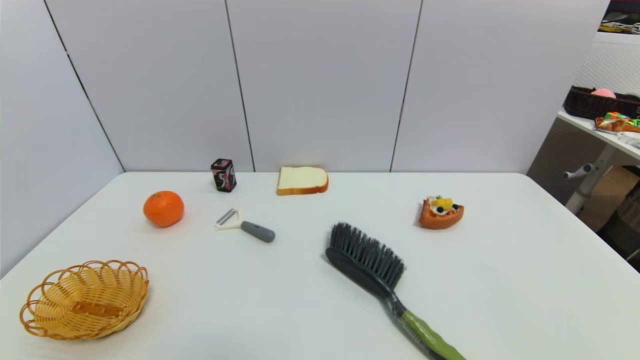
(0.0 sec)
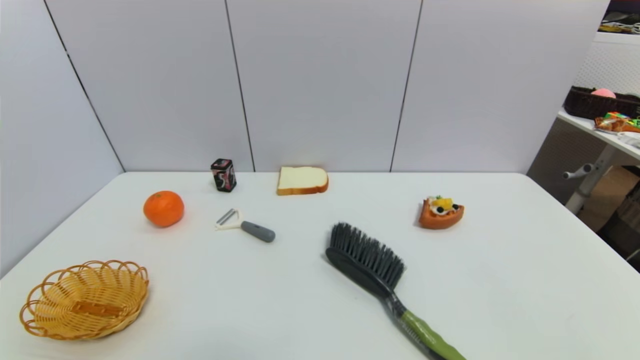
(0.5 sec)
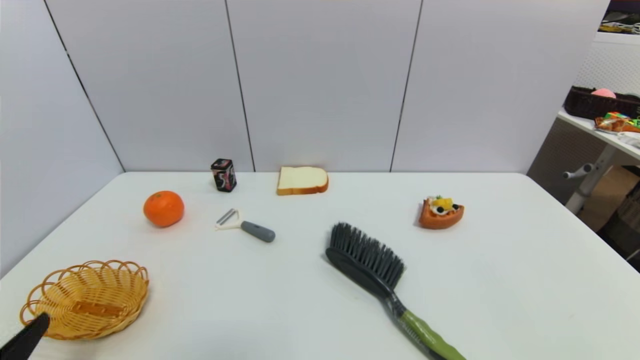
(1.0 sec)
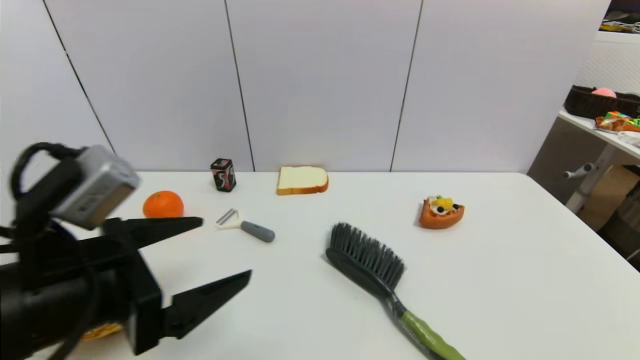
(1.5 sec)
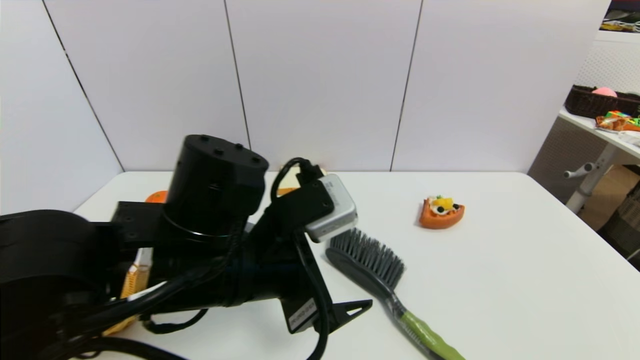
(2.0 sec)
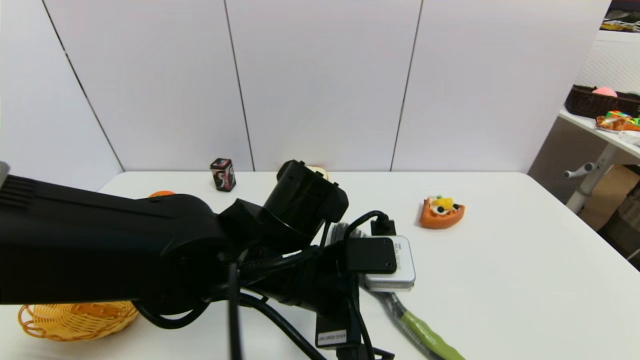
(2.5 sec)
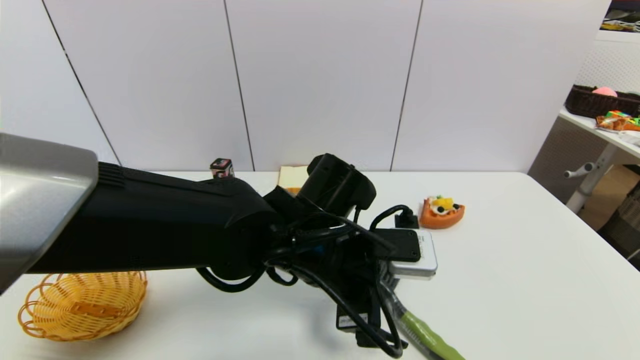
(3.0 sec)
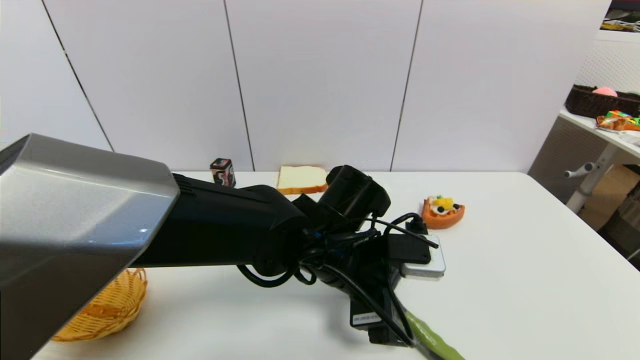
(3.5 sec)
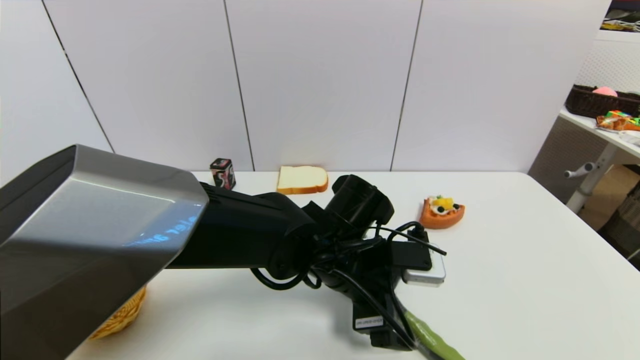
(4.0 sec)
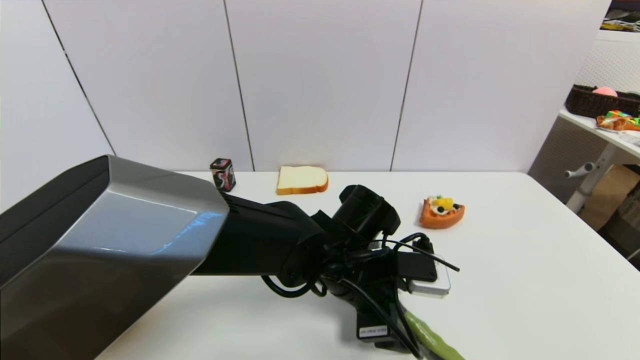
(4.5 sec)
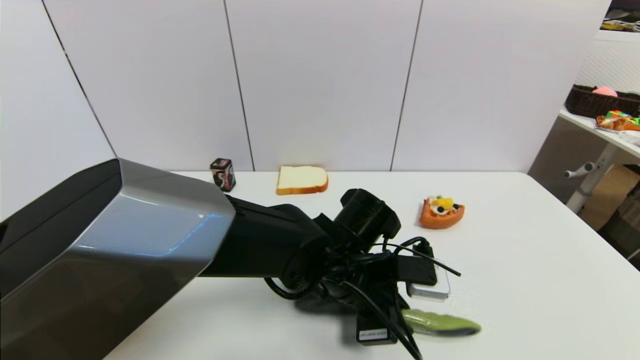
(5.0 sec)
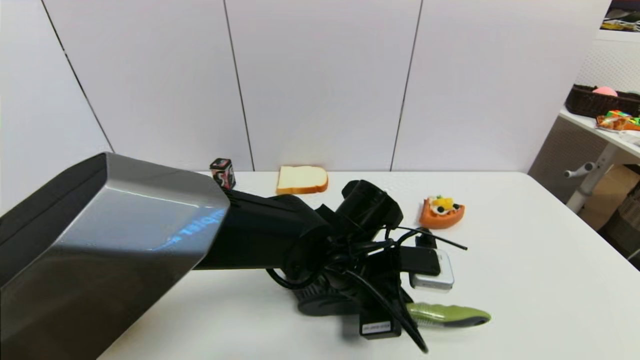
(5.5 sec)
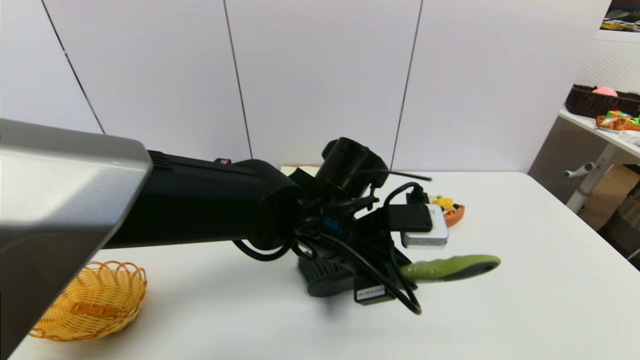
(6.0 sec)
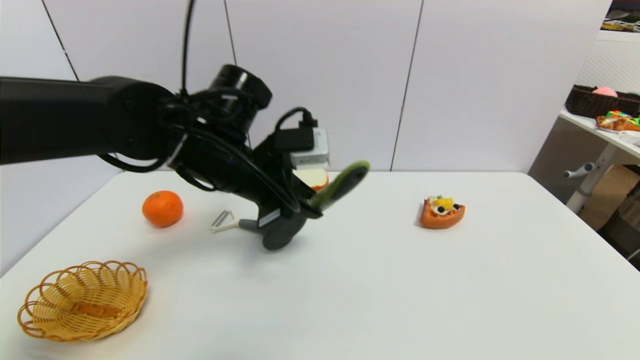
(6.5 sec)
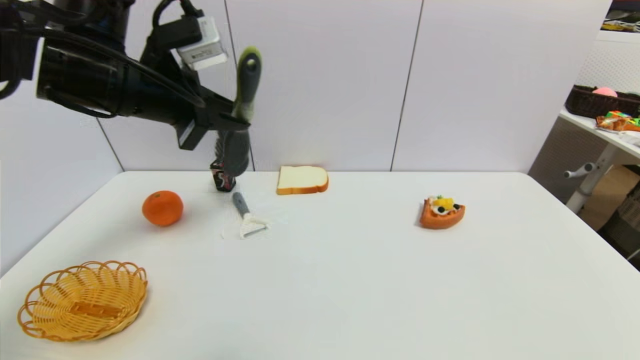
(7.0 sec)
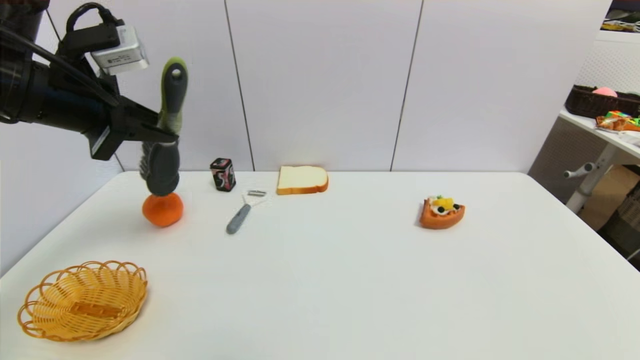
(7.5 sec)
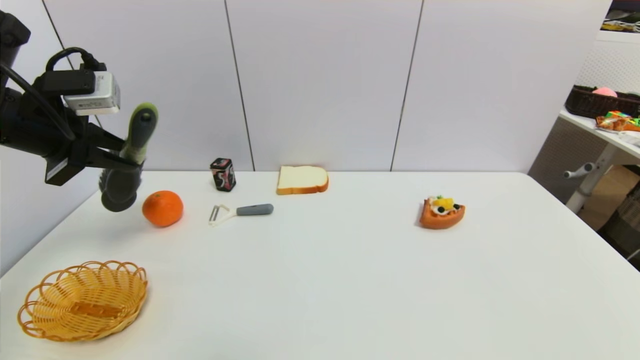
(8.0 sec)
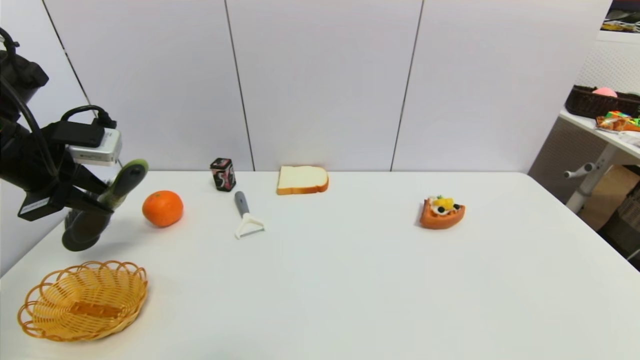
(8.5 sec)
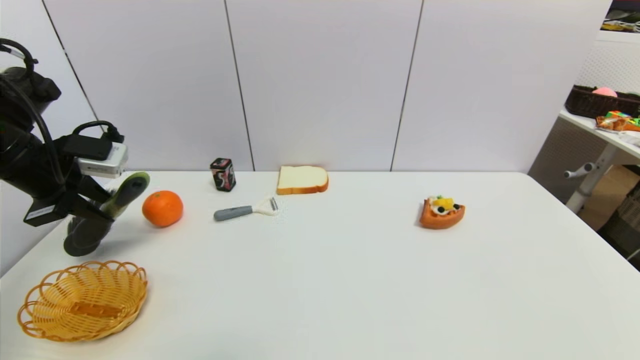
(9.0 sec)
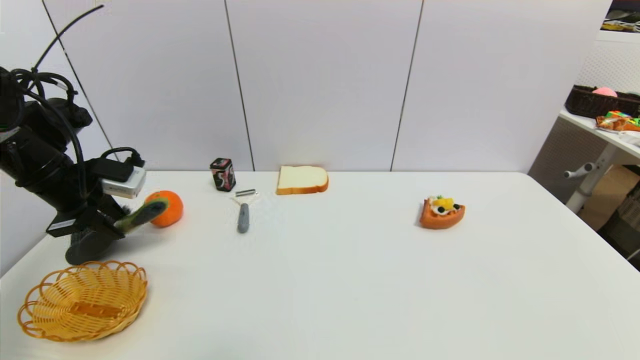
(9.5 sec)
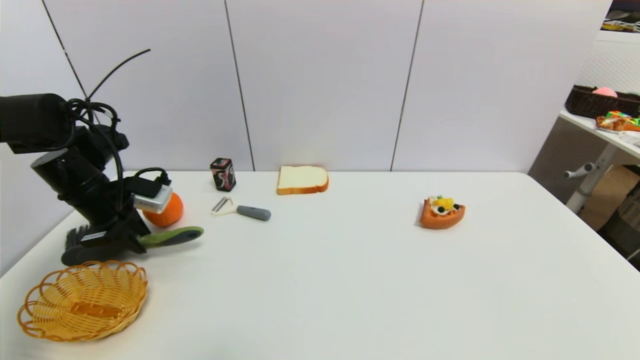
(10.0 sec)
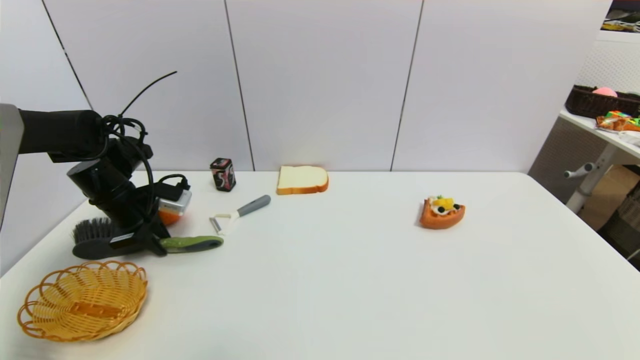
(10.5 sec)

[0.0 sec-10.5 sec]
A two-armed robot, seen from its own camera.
Task of the whole recording: put the brush in the designated position.
Step, 1.0 sec to 6.5 sec: Grasp the brush with left gripper.
0.0 sec to 2.0 sec: The left gripper moves to the right, forward and upward, roughly 35 cm.
2.0 sec to 4.0 sec: The left gripper heads to the right, downward and forward, covering some 15 cm.
4.0 sec to 6.5 sec: The left gripper heads to the left and upward, covering roughly 20 cm, and closes.
6.5 sec to 8.5 sec: The left gripper travels to the left by approximately 25 cm.
8.5 sec to 10.5 sec: The left gripper heads downward and forward, covering some 15 cm.

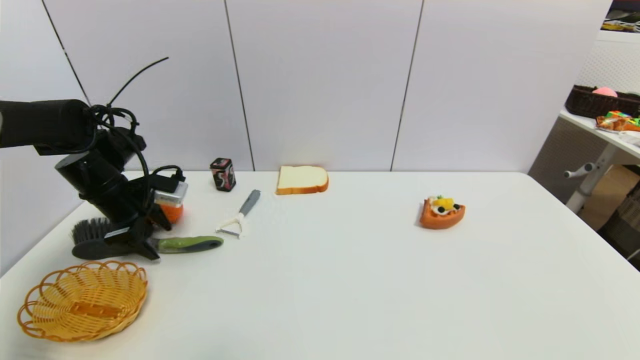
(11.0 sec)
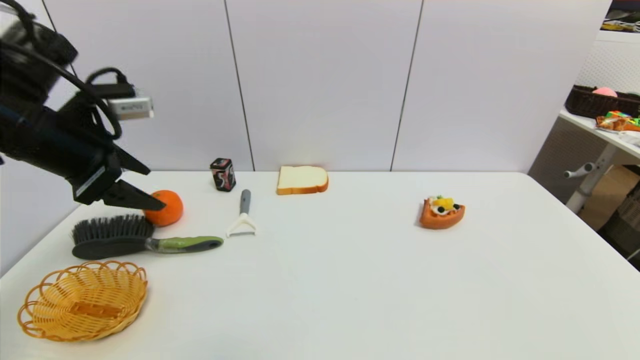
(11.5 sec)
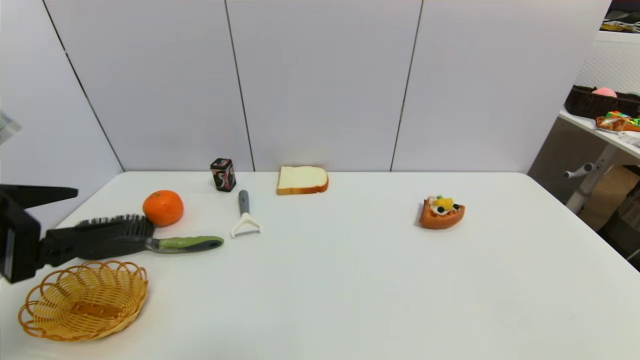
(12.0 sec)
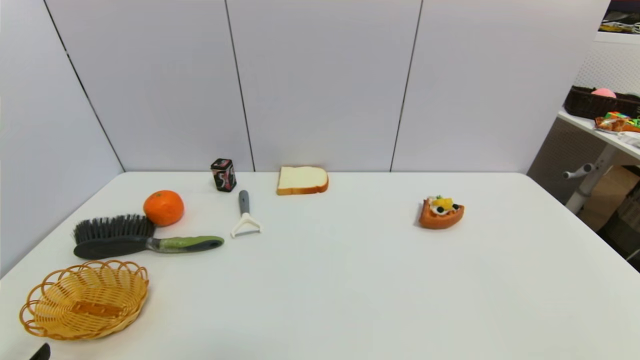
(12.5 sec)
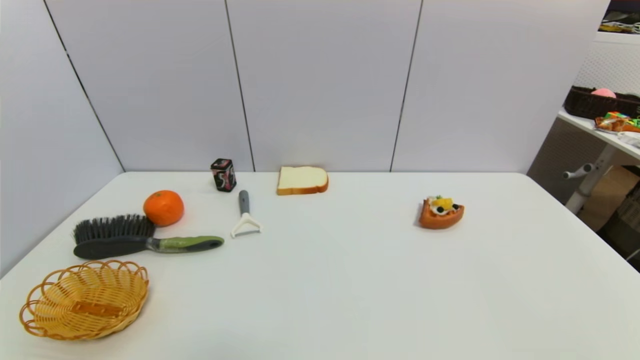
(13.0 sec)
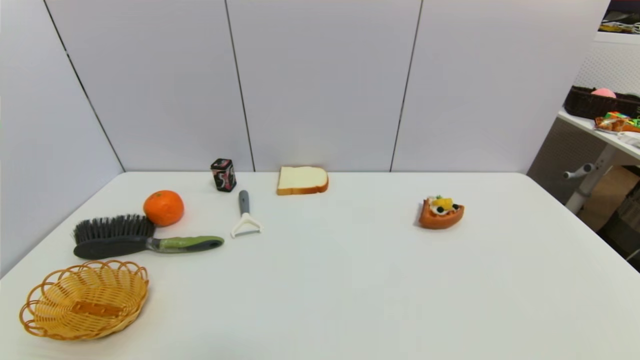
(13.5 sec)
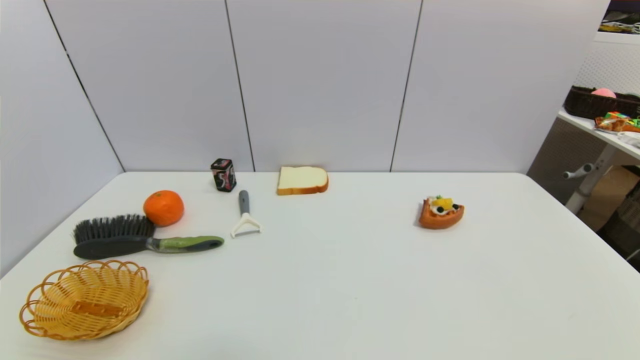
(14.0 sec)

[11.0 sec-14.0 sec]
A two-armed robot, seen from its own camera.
Task of the whole recording: put the brush in the designated position.
11.0 sec to 12.5 sec: The left gripper heads backward, covering approximately 35 cm.
